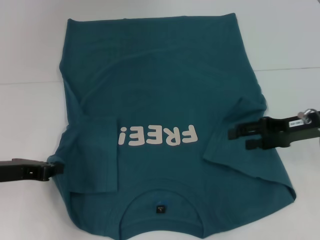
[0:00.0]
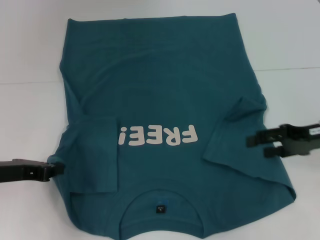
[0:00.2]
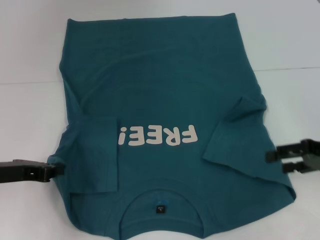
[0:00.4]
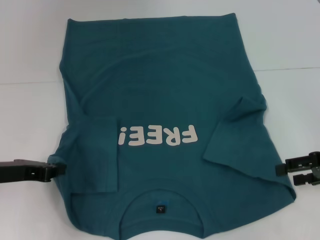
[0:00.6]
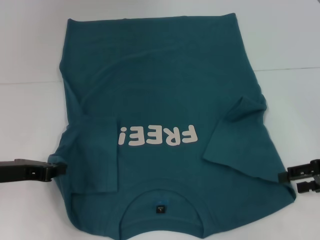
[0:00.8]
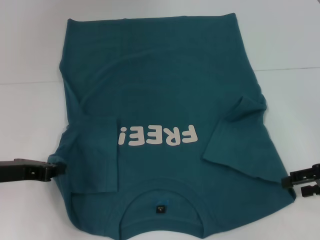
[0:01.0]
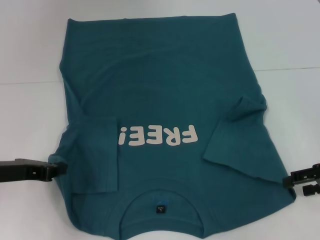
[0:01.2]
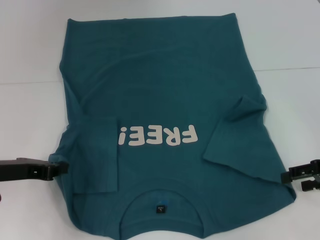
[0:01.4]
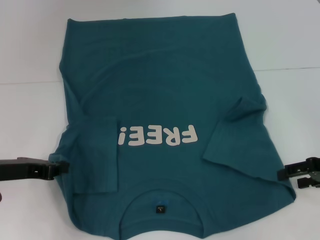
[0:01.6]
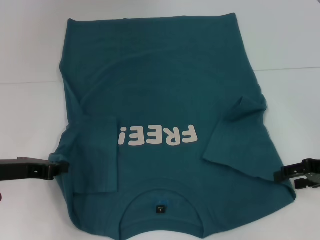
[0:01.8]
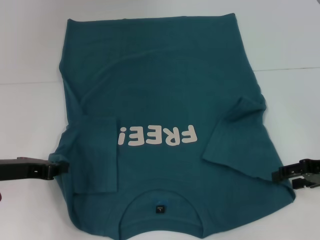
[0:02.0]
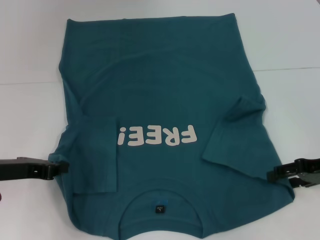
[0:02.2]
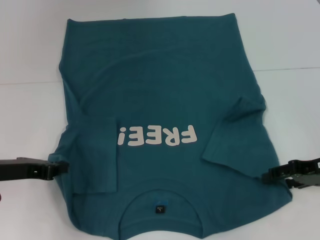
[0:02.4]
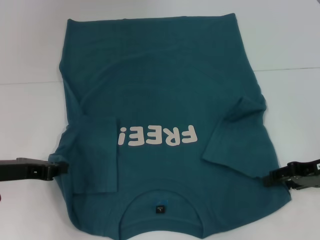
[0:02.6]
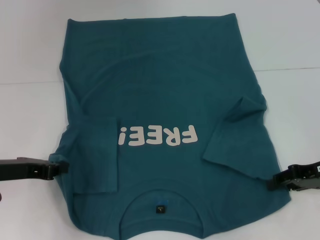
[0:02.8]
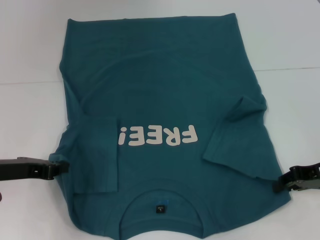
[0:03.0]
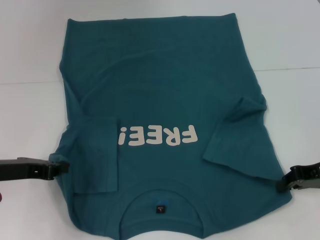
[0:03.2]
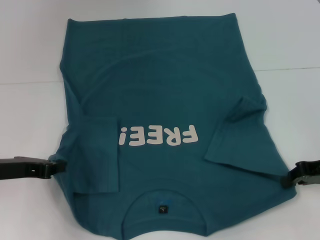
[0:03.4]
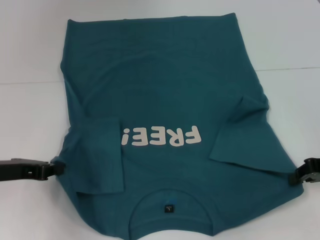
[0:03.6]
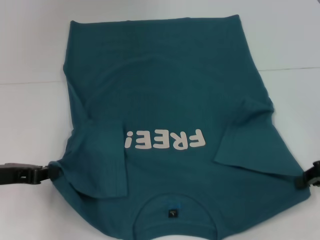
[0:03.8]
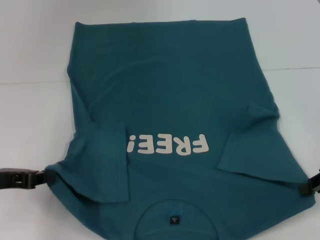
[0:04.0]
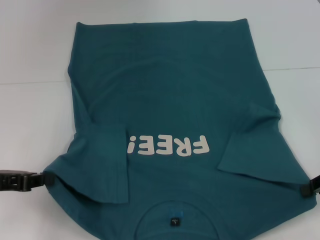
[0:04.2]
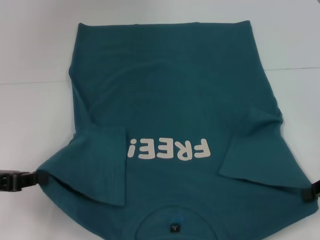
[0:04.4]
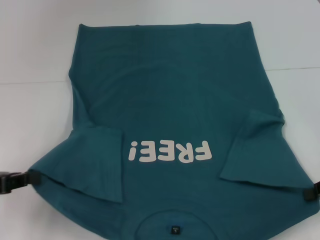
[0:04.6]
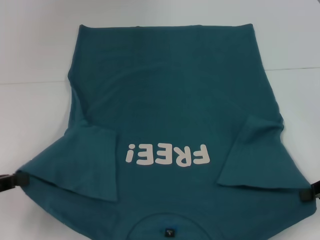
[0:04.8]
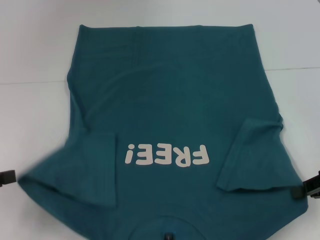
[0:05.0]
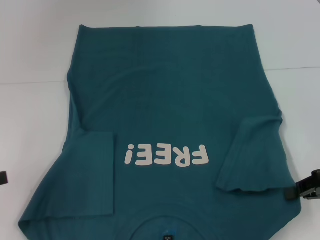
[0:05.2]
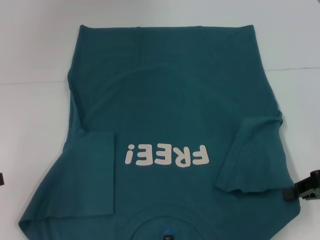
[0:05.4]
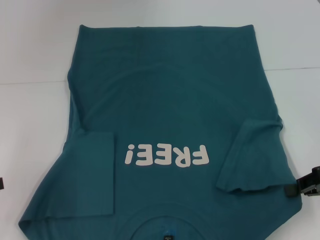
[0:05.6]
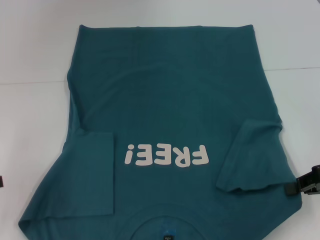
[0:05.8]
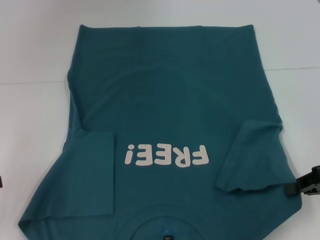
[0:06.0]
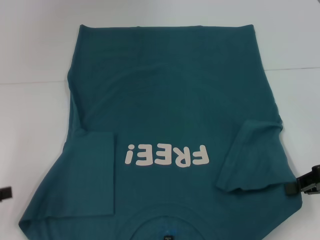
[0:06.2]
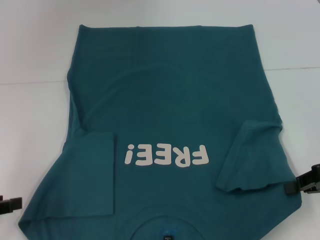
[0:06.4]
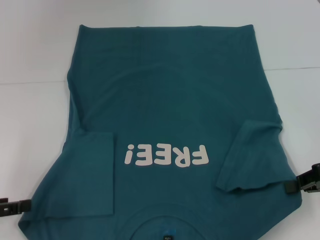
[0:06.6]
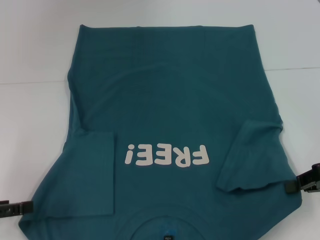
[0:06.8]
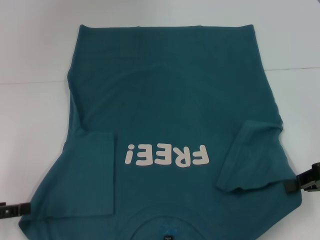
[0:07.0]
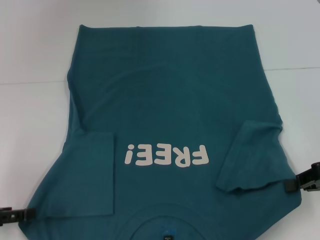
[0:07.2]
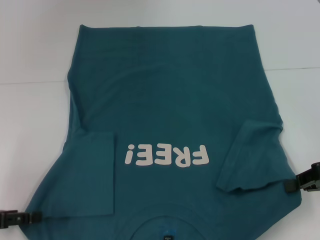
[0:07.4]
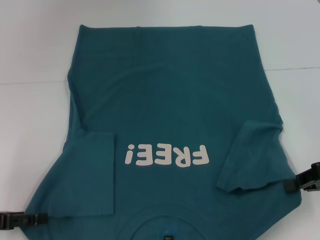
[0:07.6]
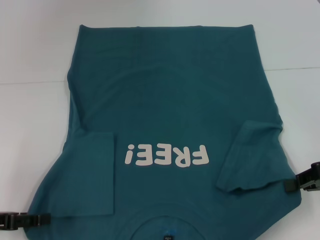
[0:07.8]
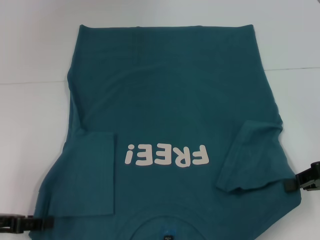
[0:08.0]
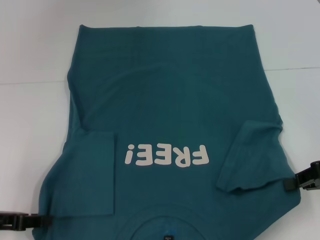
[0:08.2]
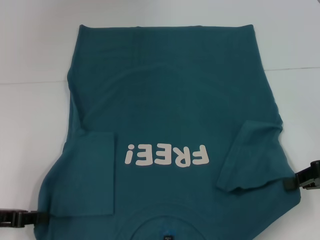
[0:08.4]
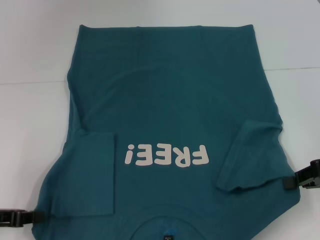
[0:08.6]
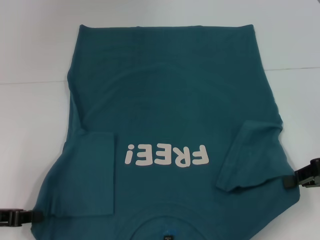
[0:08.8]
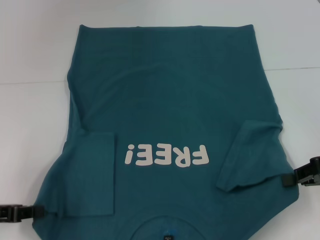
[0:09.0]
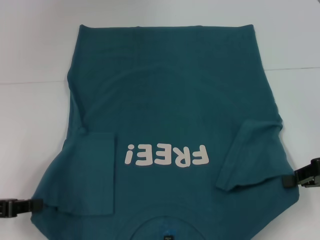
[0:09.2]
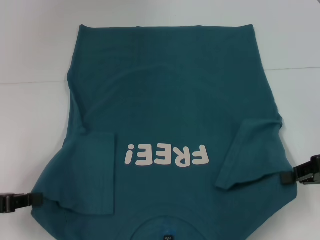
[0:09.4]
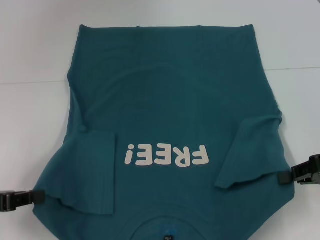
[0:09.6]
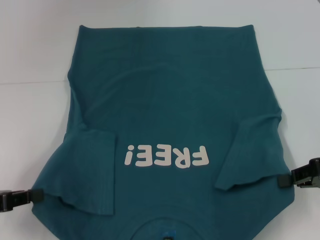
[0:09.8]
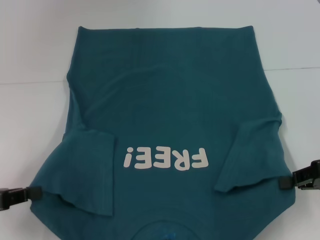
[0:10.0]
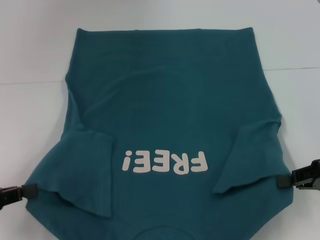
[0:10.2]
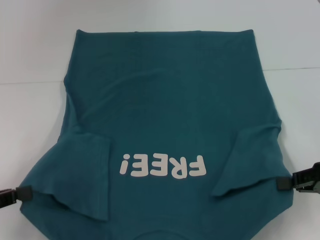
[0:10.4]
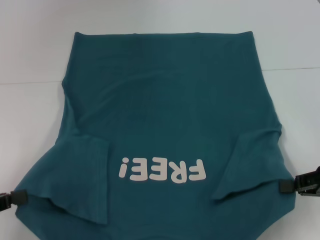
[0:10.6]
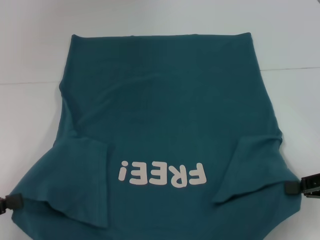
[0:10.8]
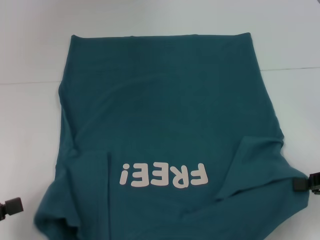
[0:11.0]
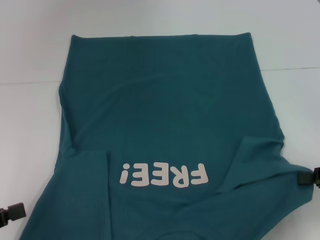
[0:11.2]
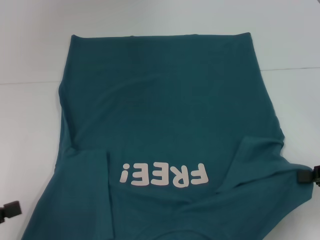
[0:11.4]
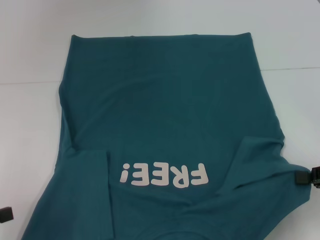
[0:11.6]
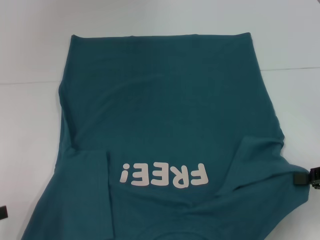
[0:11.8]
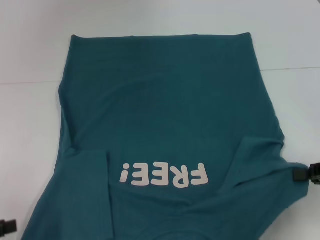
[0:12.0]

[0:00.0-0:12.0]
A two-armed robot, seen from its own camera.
Step, 0:00.0 to 0:03.0: Grab the bottom right corner with your right hand.
0:00.0 to 0:01.6: The right gripper heads to the right, covering some 5 cm.
0:01.6 to 0:03.0: The right gripper closes its fingers.
0:03.0 to 0:04.4: The right gripper moves about 5 cm, and closes up, while the left gripper ends up some 5 cm from where it was.
0:04.4 to 0:06.0: The left gripper is displaced to the left by approximately 5 cm.
0:06.0 to 0:07.6: The left gripper travels downward by approximately 5 cm, and opens its fingers.
0:07.6 to 0:09.0: The left gripper closes.
0:10.4 to 0:12.0: The grippers stay close to where they were, moving slightly.

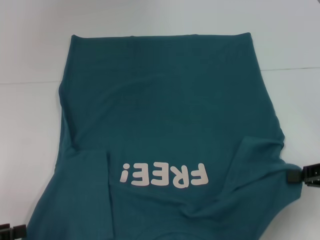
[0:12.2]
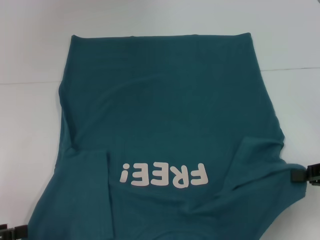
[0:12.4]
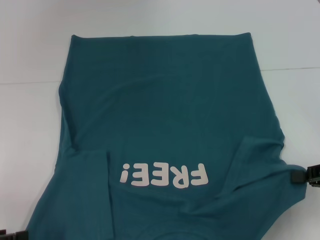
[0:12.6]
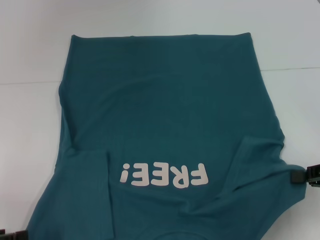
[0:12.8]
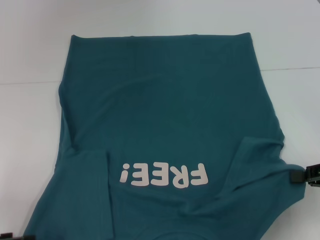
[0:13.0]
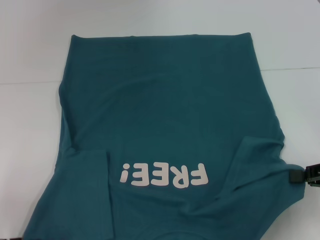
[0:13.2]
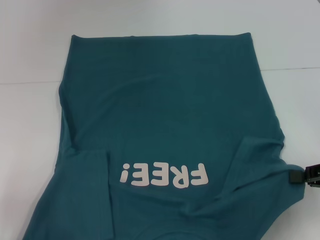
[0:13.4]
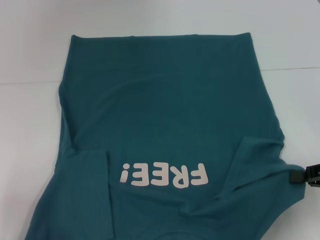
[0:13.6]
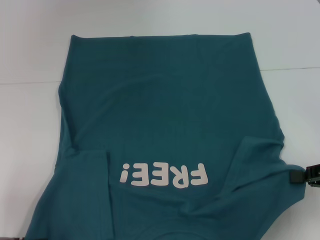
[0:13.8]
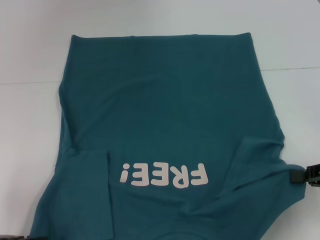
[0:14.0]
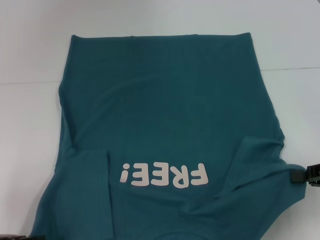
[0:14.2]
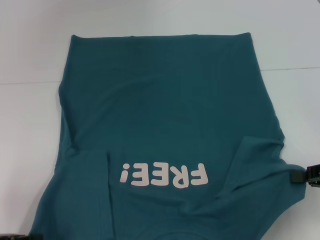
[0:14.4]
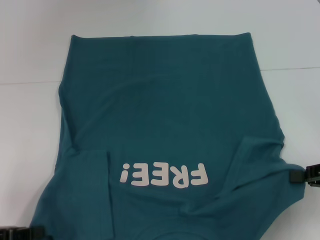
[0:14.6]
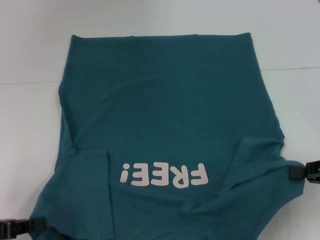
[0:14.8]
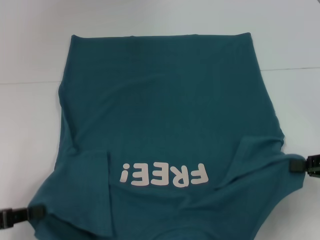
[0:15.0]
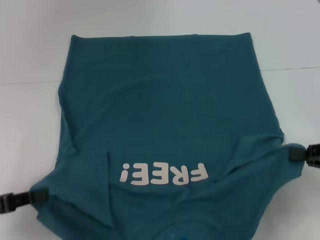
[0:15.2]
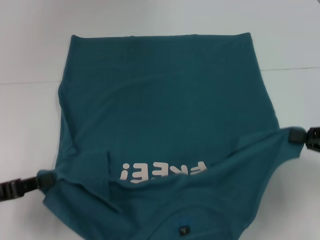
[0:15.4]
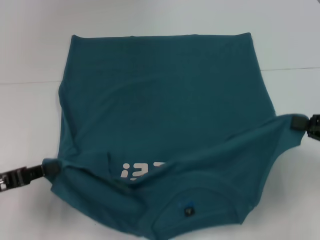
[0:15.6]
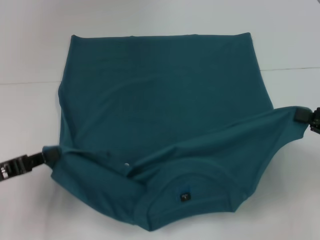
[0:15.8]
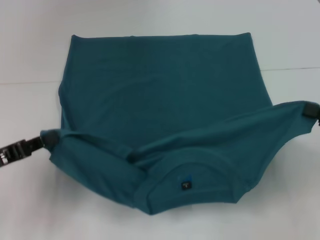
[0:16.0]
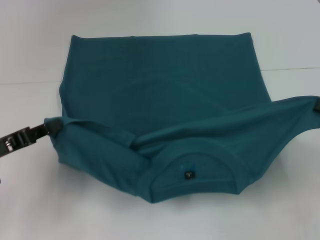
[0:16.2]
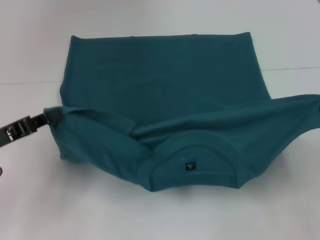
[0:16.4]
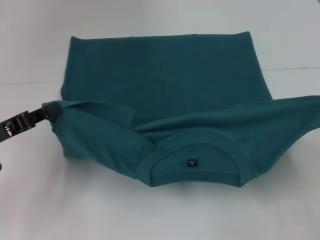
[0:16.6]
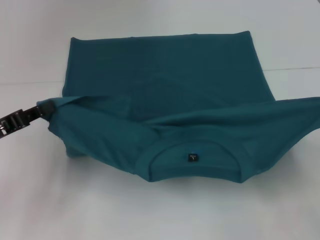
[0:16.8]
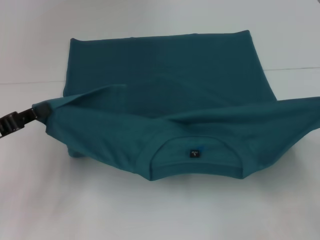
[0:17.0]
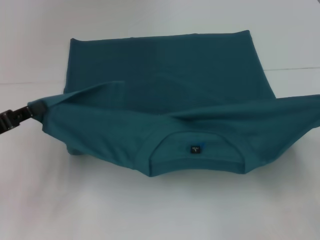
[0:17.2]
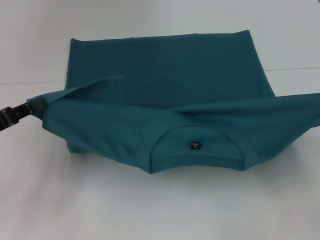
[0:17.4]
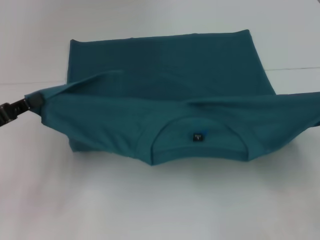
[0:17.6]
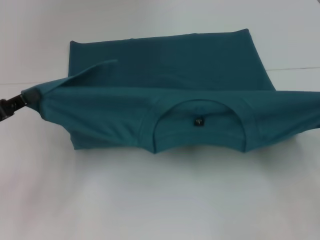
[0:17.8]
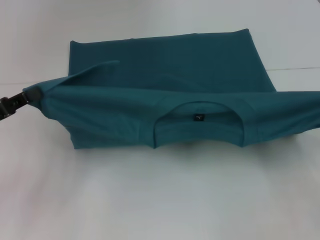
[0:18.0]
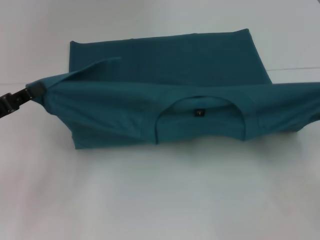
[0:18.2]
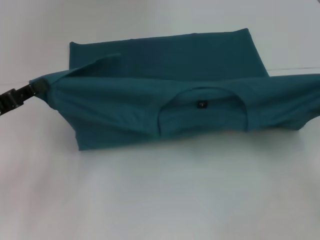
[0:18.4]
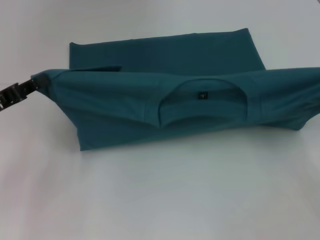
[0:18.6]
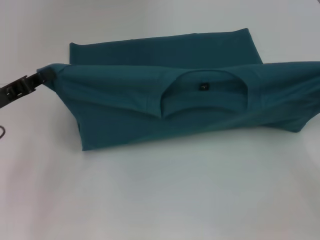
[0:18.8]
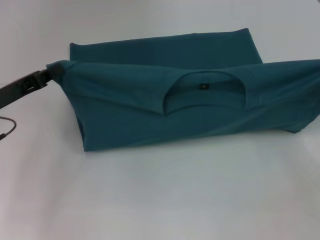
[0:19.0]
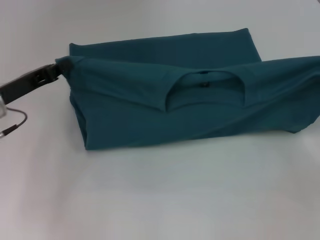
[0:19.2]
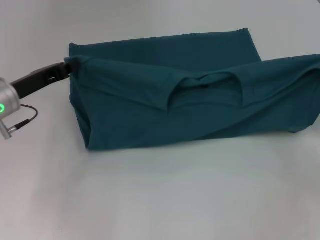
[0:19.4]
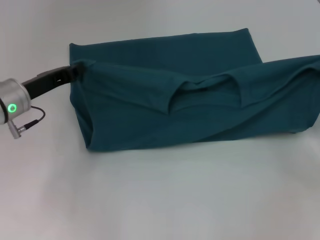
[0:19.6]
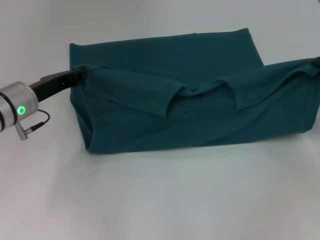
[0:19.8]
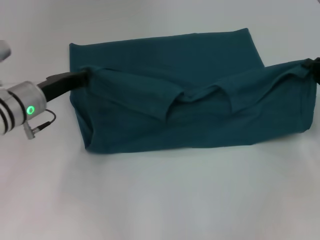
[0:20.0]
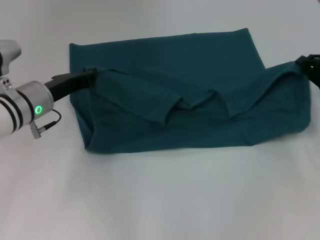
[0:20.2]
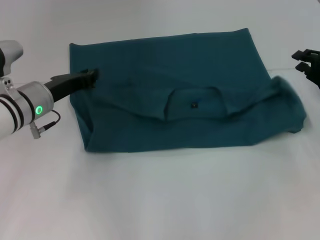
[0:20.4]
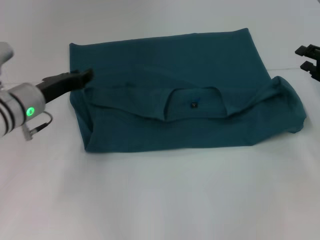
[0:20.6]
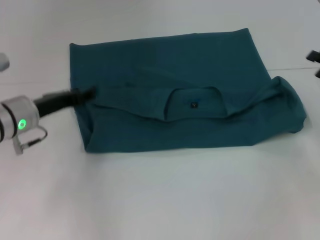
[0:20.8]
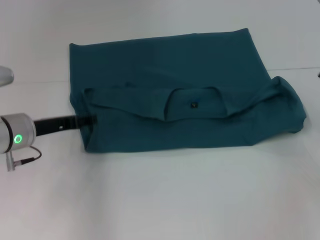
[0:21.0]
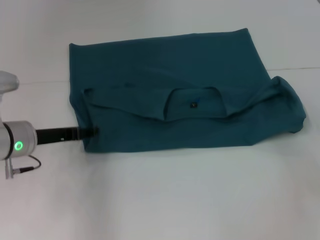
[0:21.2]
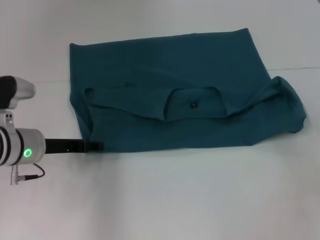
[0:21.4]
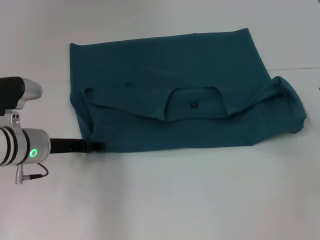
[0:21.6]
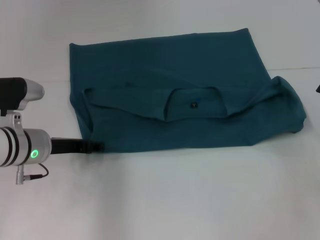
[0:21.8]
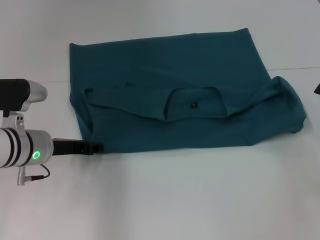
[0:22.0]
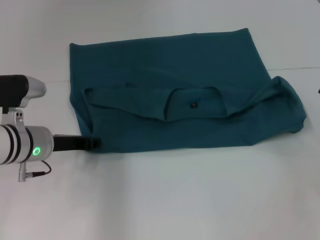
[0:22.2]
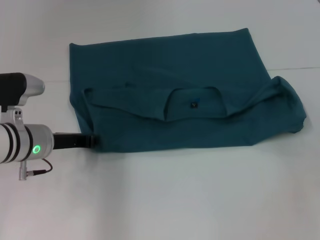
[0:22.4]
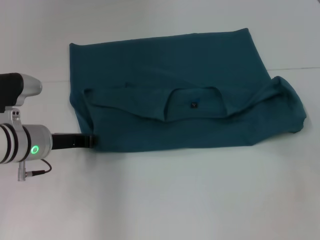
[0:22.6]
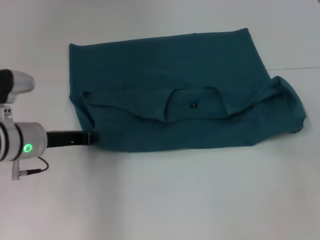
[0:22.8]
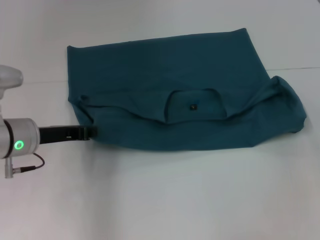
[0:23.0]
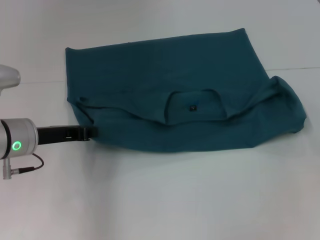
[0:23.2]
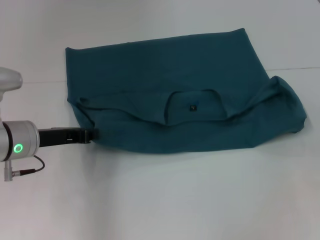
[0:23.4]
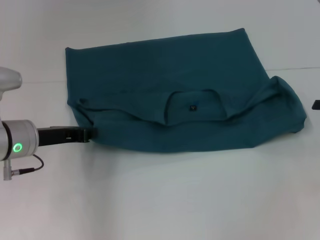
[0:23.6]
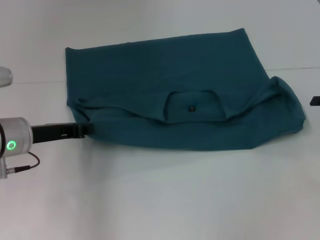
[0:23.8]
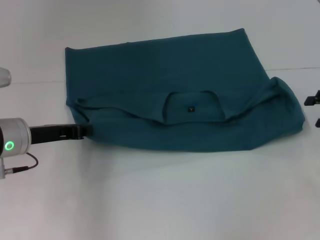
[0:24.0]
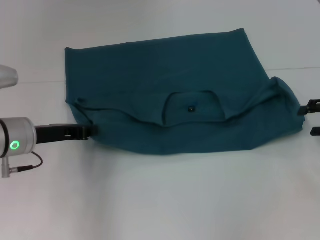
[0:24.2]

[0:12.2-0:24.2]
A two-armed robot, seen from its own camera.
Step, 0:12.2 to 0:20.4: Fold the clothes to the left.
Step, 0:12.2 to 0:20.4: Fold the clothes to the right.
0:12.2 to 0:13.8: The grippers stay close to where they were, moving slightly.
0:13.8 to 0:15.2: The left gripper closes.
0:15.2 to 0:16.6: The left gripper shifts approximately 5 cm forward.
0:18.2 to 0:19.8: The right gripper travels forward by some 10 cm, while the left gripper shifts approximately 15 cm forward and to the right.
0:19.8 to 0:21.2: The right gripper changes place by roughly 5 cm, and opens up. Meanwhile the left gripper opens up.
0:21.2 to 0:22.6: The left gripper closes its fingers.
0:22.6 to 0:24.2: The right gripper moves approximately 5 cm.
